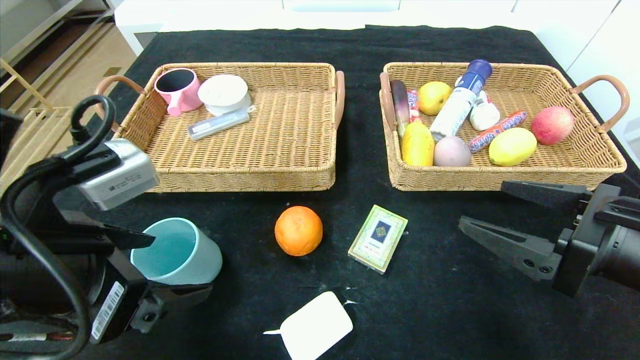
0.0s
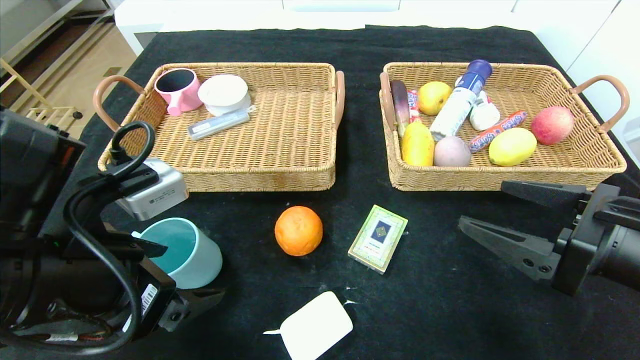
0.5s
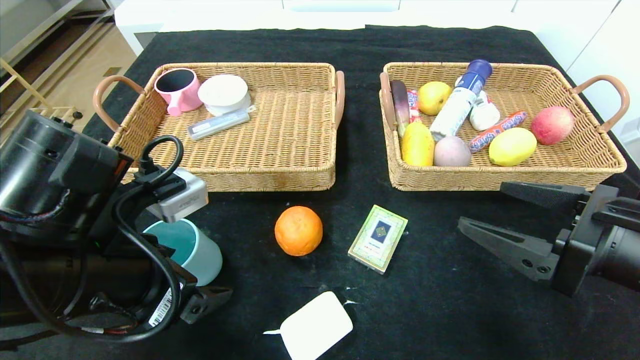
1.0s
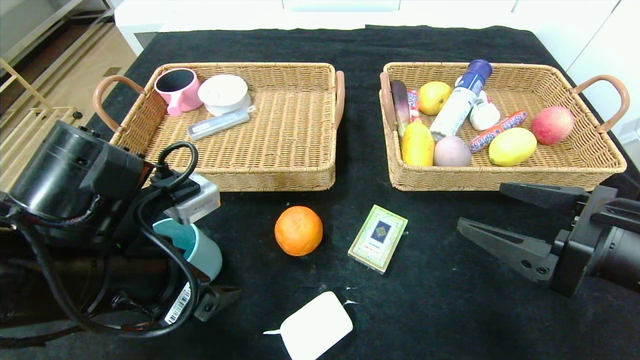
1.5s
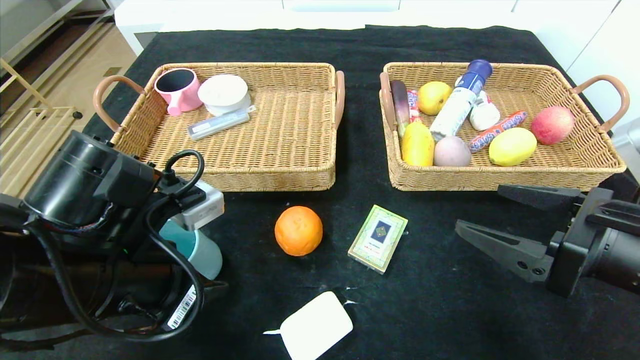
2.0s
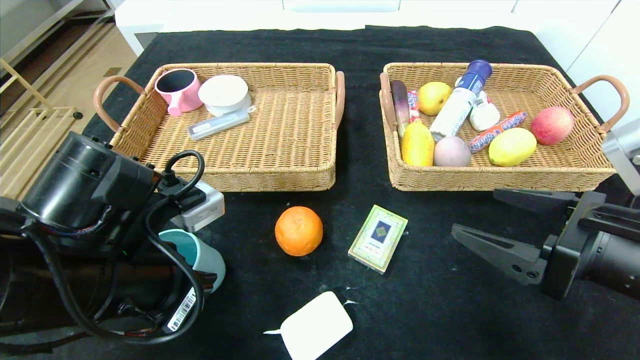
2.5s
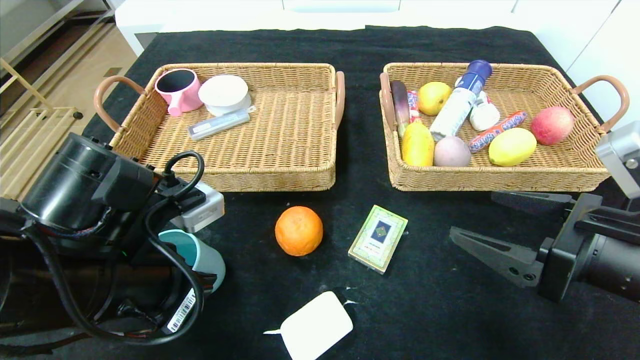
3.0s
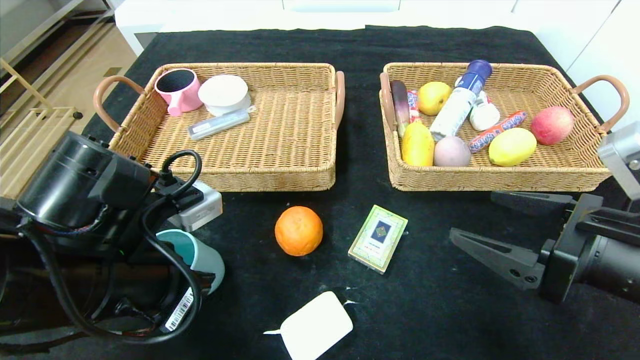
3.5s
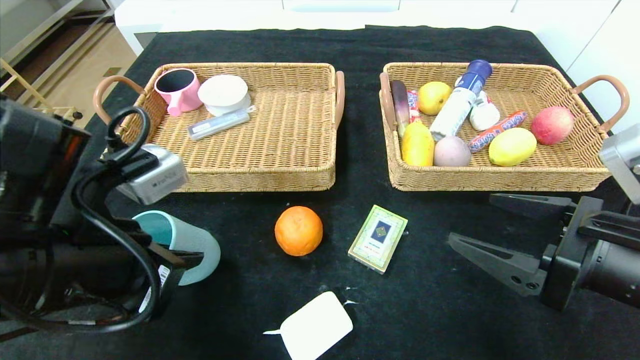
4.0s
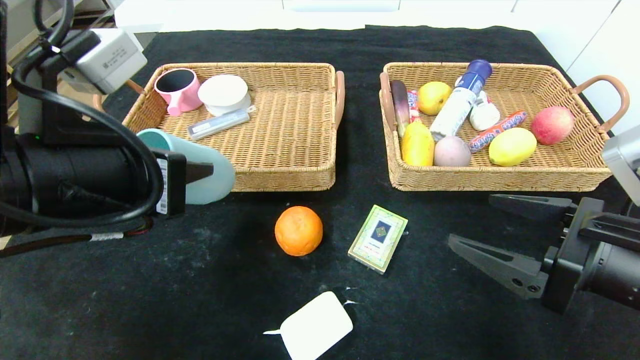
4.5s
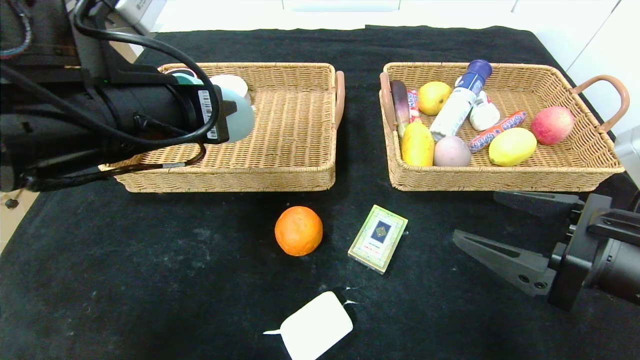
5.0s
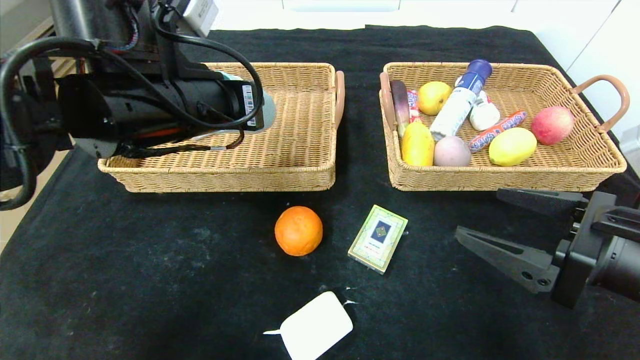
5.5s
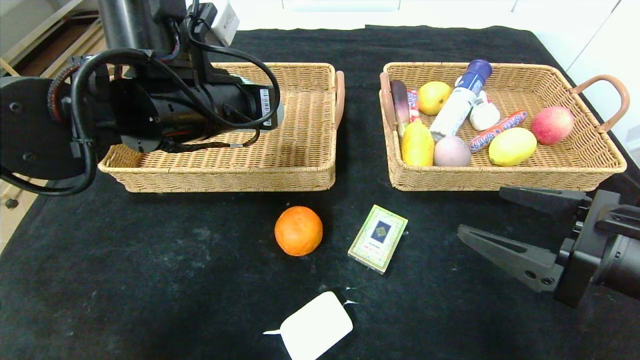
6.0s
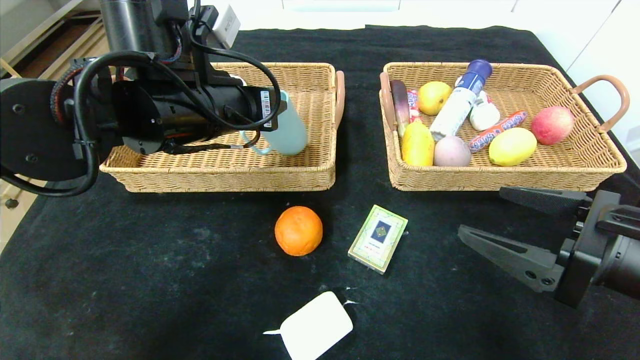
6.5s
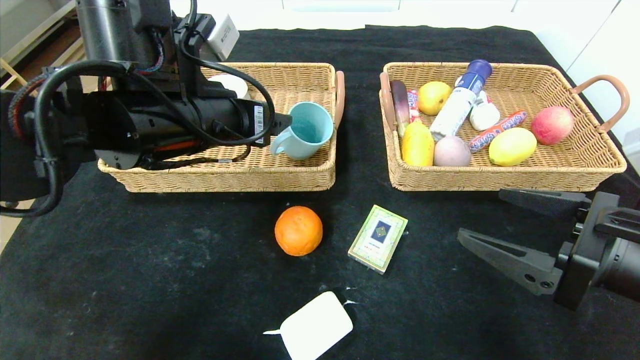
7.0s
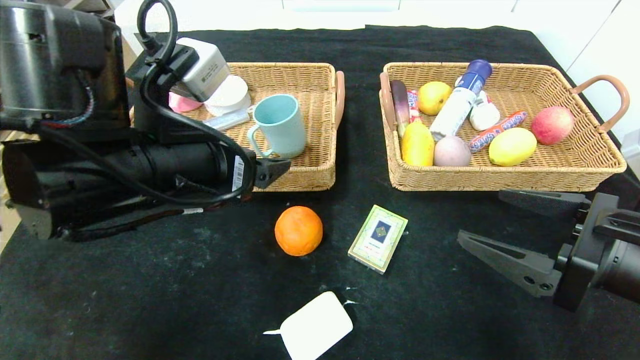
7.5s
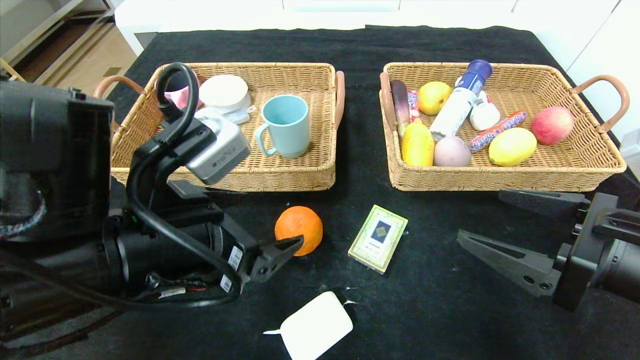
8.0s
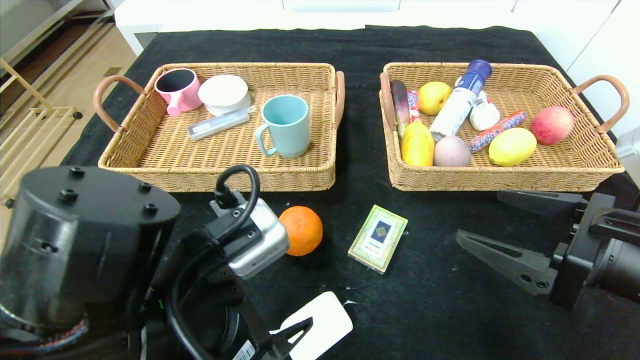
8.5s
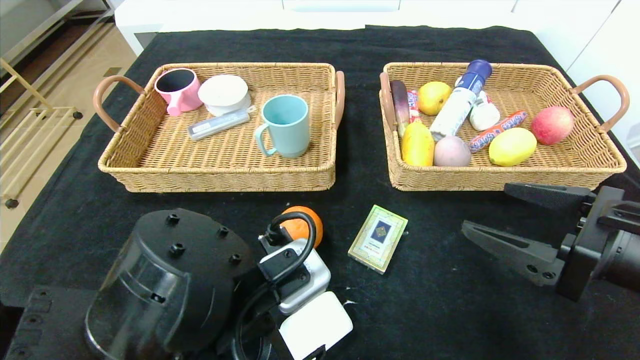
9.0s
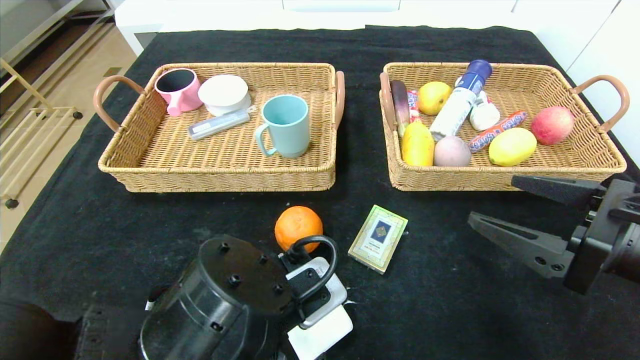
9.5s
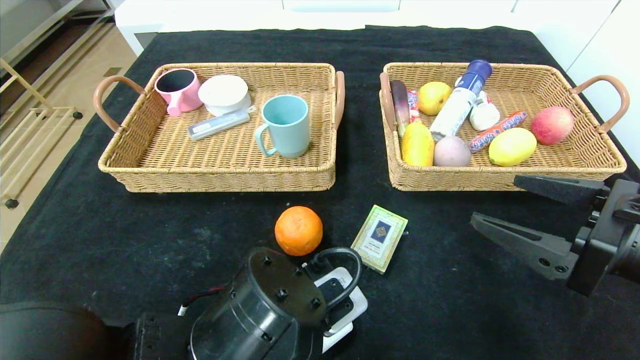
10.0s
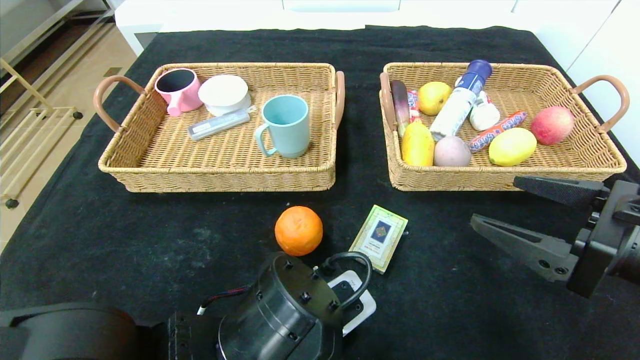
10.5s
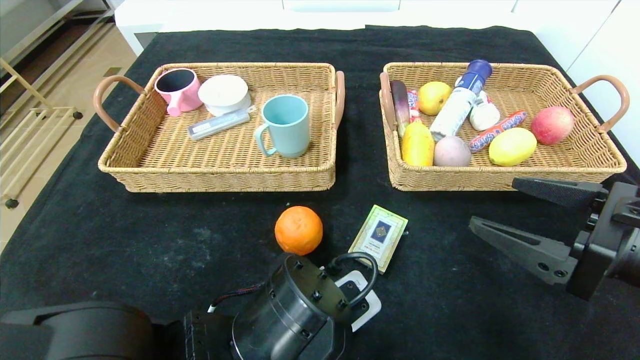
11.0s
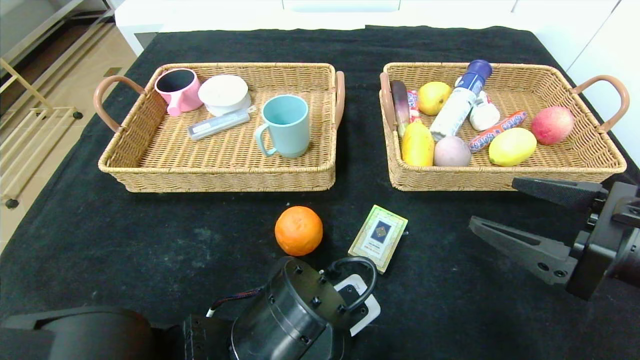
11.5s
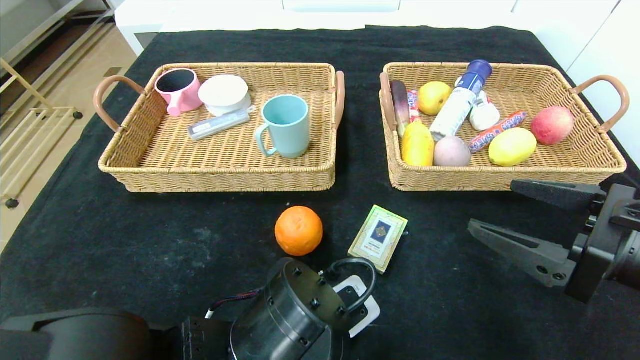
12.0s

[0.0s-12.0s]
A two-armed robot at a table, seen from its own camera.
Step, 0.0s to 6.5s: Grasp the blue cup and put it in the left basket.
0.0s to 2.0s: The left gripper changes place by some 5 cm, and closes up.
2.0s to 4.0s: The left gripper closes its fingers.
4.0s to 6.0s: The left gripper is displaced forward and upward by roughly 15 cm.
6.0s to 8.0s: The left gripper is displaced backward and downward by approximately 15 cm, and opens up.
8.0s to 10.0s: The left gripper moves downward and to the right, approximately 10 cm.
10.0s to 12.0s: The left gripper closes up.

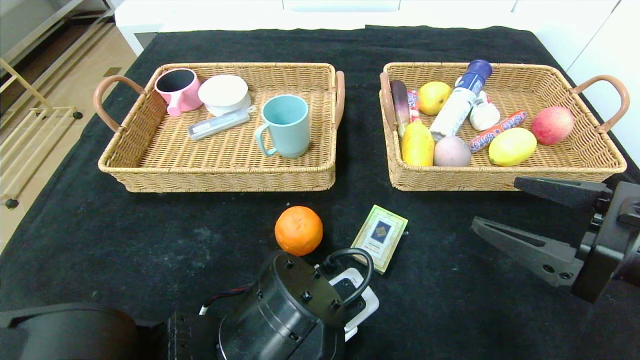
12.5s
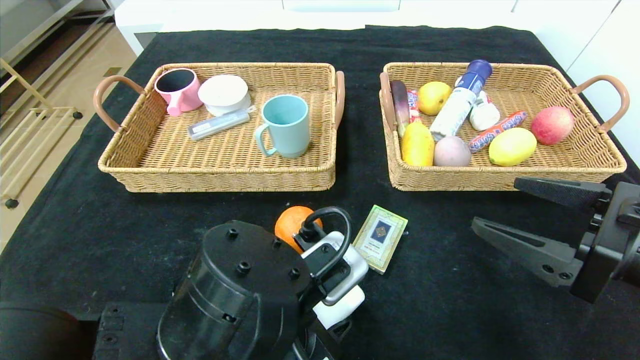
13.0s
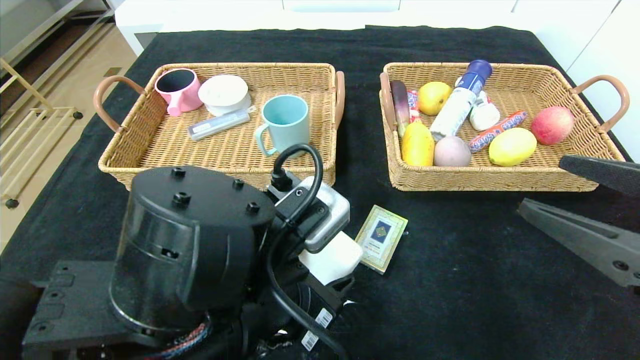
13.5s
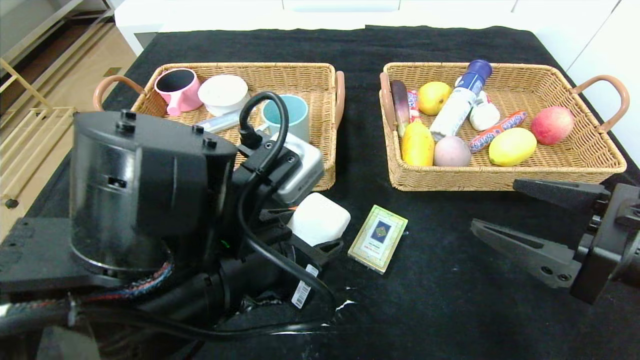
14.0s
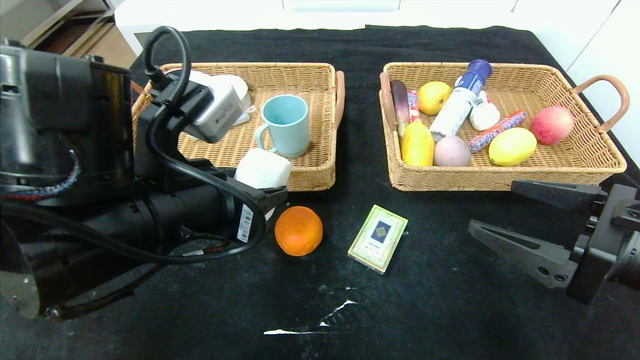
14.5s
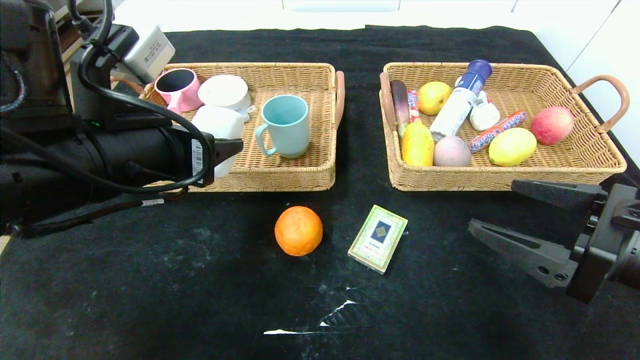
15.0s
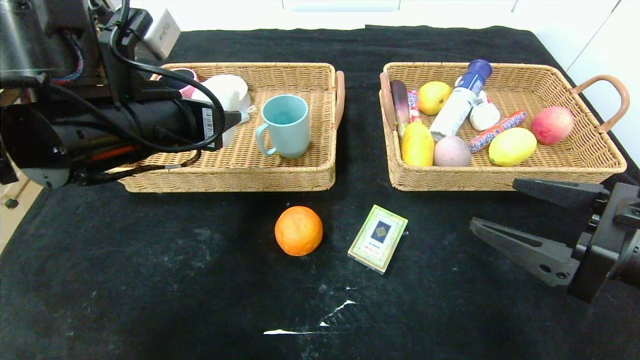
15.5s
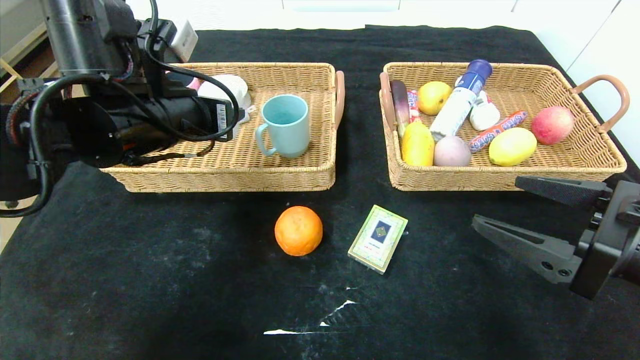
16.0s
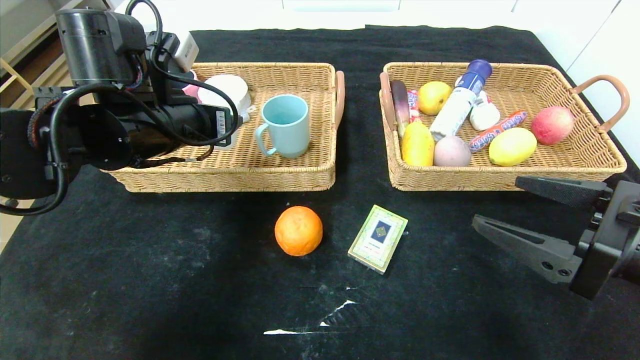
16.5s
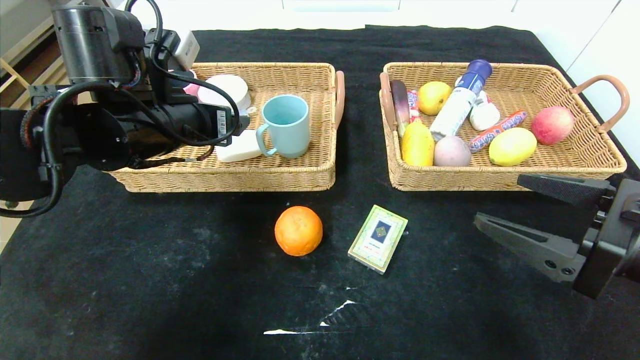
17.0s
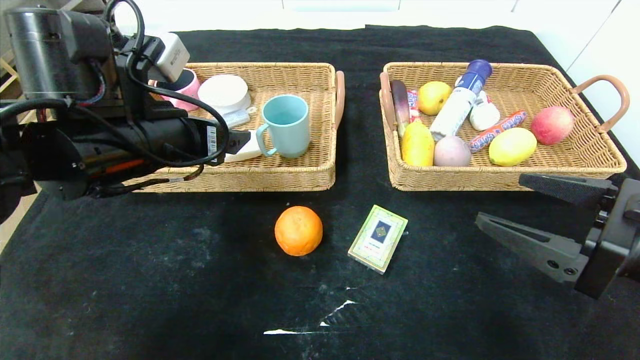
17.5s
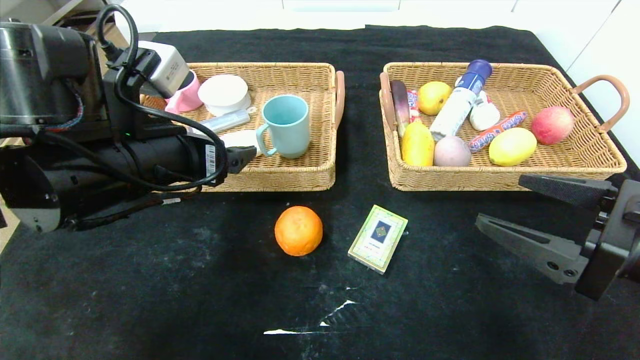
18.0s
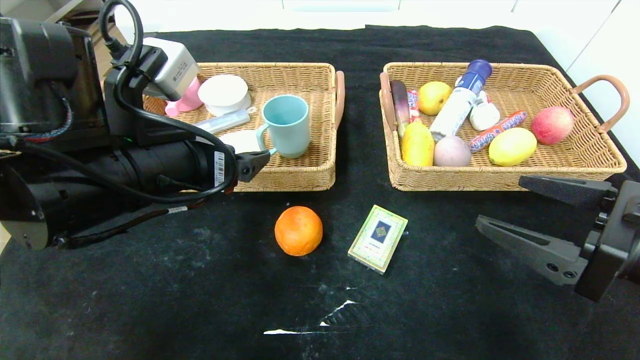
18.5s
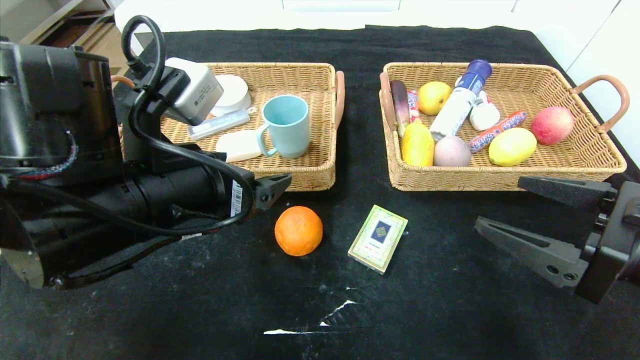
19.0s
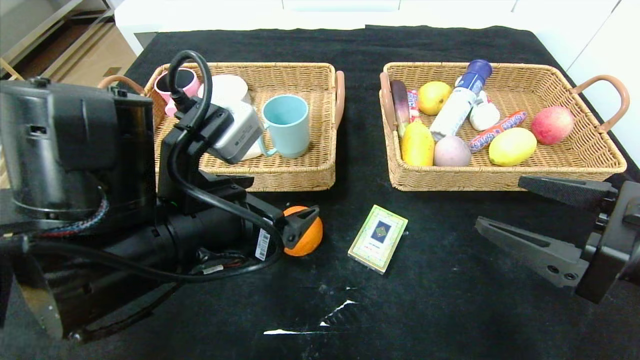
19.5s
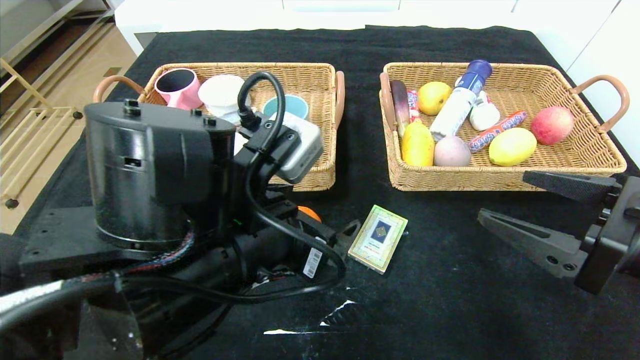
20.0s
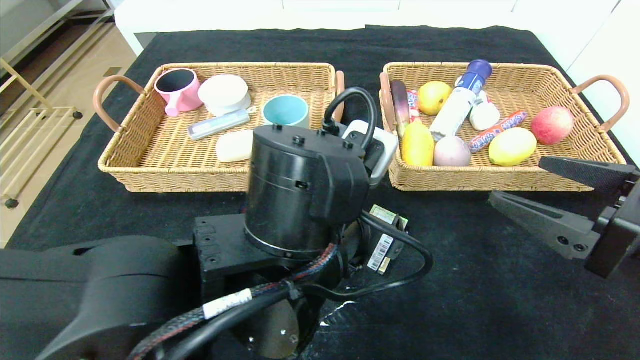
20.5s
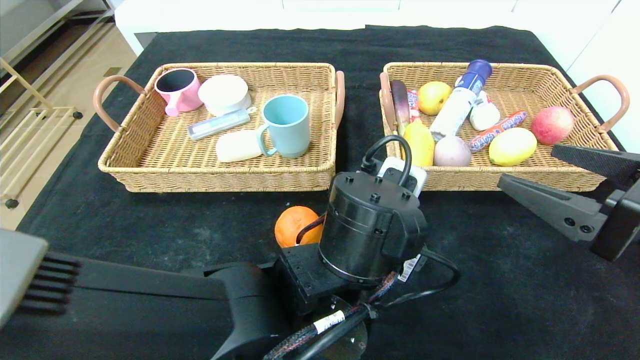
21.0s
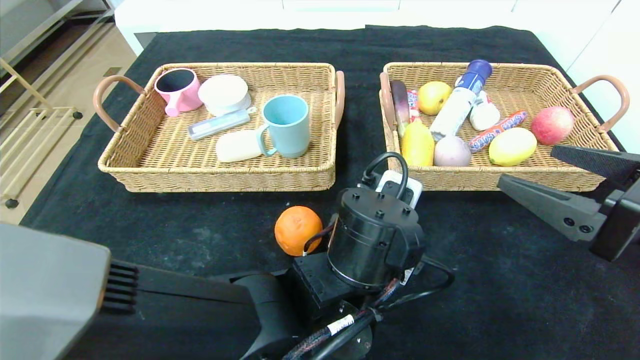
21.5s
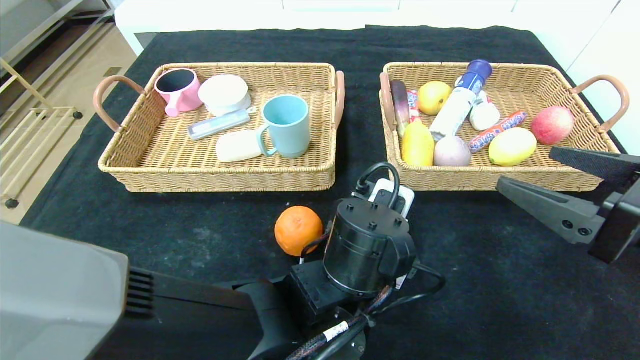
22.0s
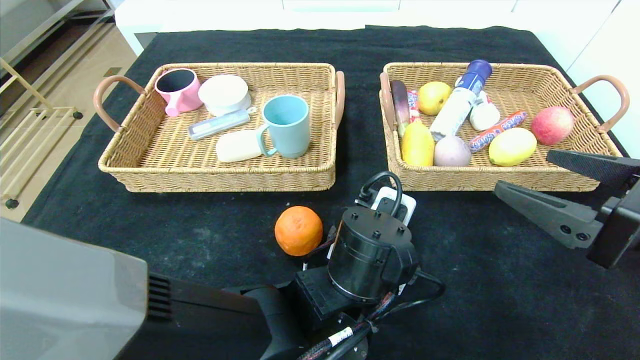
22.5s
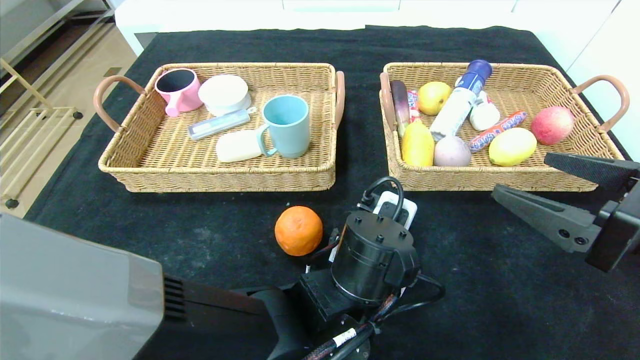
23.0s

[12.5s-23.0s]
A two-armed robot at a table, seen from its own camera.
Step, 12.5s to 16.5s: Grasp the white eraser and put it in the left basket.
12.5s to 14.5s: The left gripper goes roughly 15 cm upward and to the left.
14.5s to 16.5s: The left gripper moves forward and to the left, approximately 15 cm.
16.5s to 19.0s: The left gripper goes approximately 10 cm backward.
19.0s to 21.0s: The left gripper is displaced to the right and downward by about 20 cm.
21.0s to 23.0s: The grippers stay close to where they were, moving slightly.
